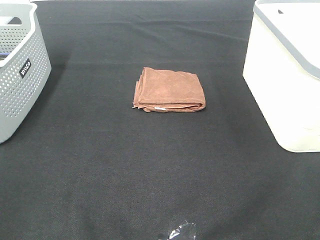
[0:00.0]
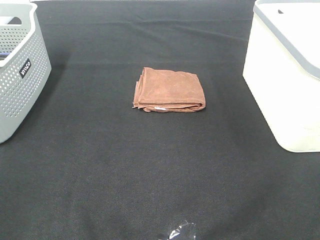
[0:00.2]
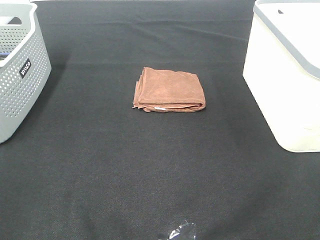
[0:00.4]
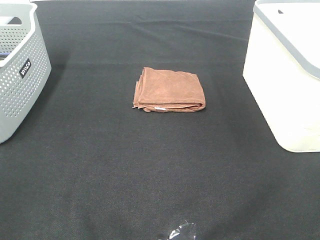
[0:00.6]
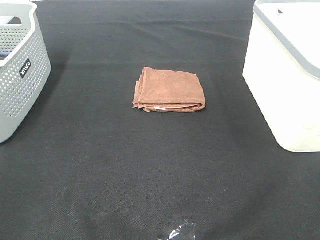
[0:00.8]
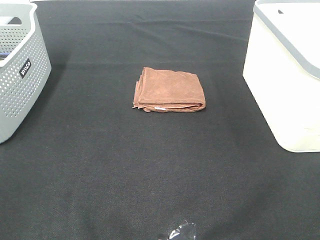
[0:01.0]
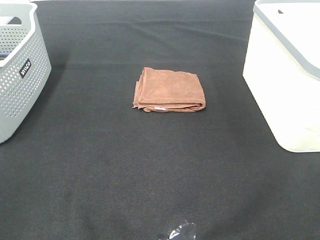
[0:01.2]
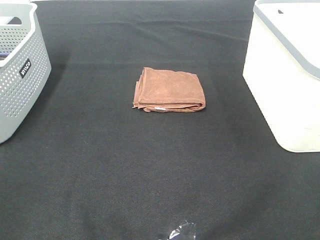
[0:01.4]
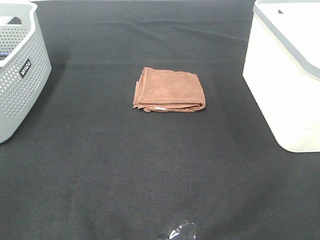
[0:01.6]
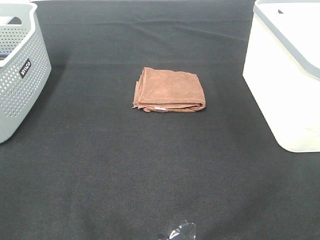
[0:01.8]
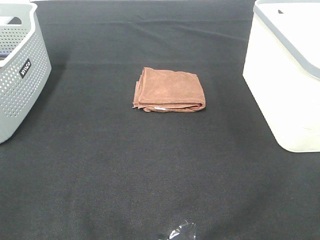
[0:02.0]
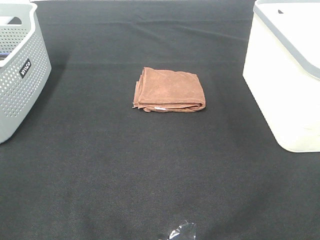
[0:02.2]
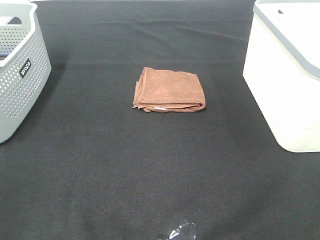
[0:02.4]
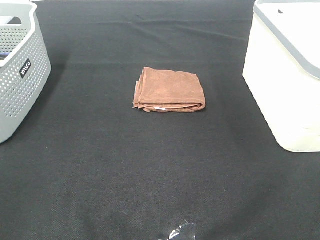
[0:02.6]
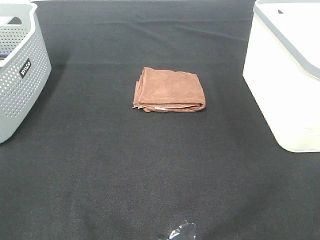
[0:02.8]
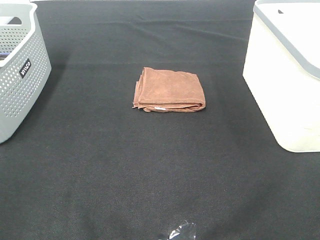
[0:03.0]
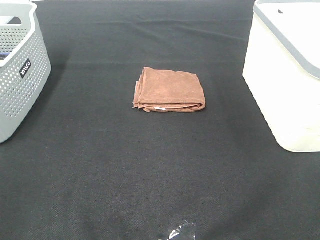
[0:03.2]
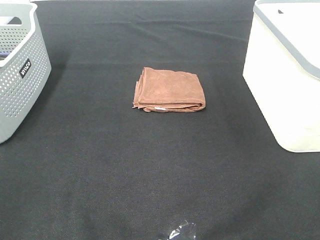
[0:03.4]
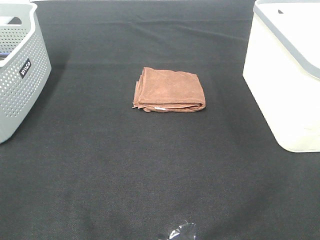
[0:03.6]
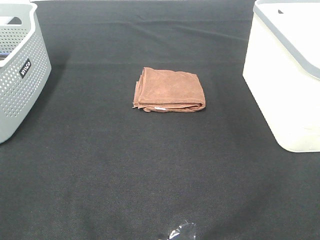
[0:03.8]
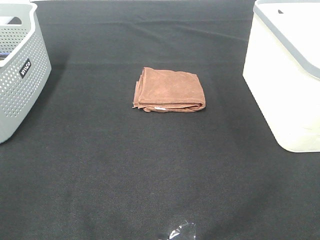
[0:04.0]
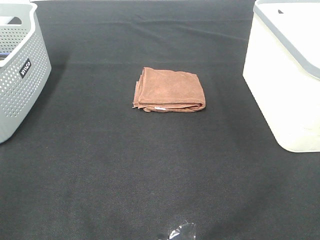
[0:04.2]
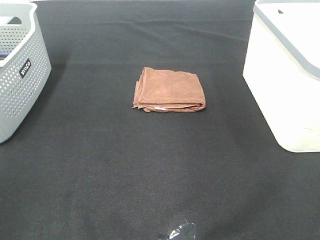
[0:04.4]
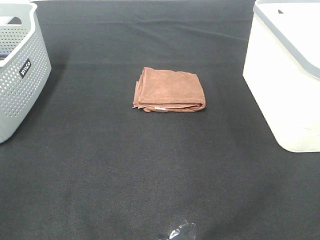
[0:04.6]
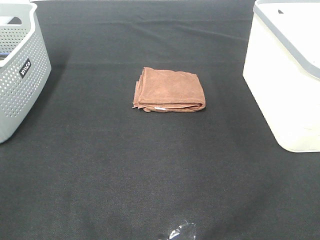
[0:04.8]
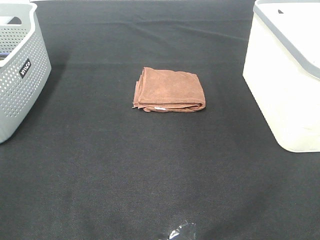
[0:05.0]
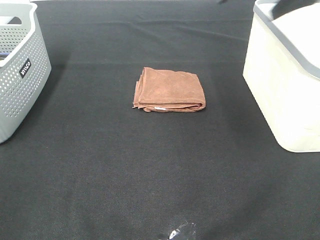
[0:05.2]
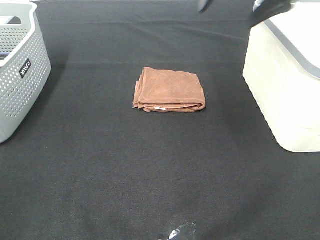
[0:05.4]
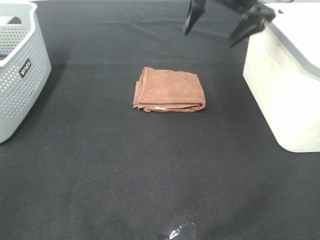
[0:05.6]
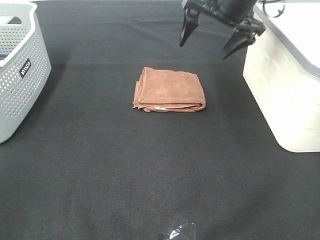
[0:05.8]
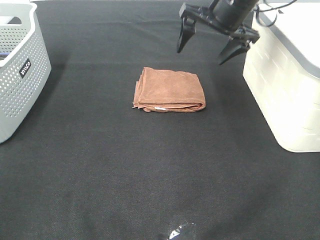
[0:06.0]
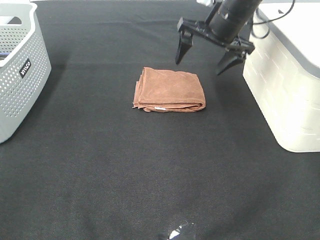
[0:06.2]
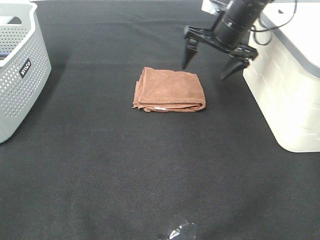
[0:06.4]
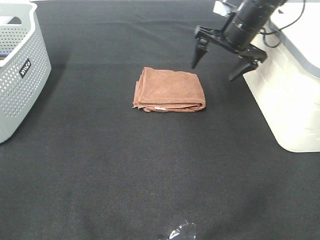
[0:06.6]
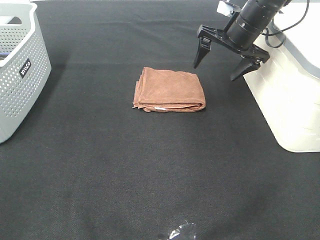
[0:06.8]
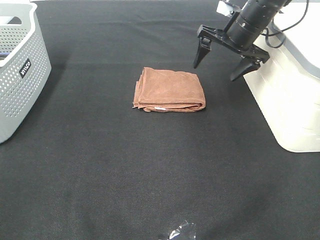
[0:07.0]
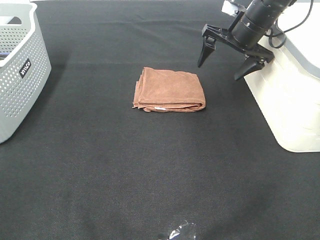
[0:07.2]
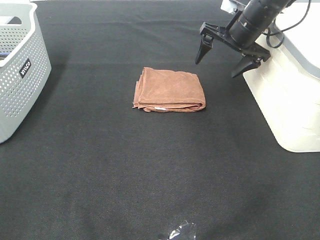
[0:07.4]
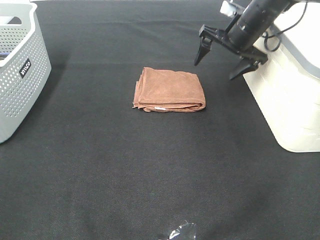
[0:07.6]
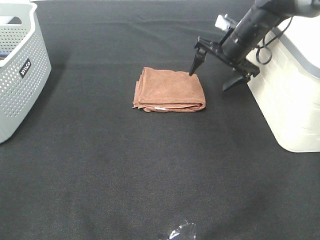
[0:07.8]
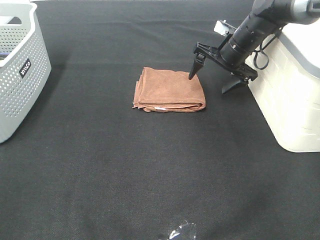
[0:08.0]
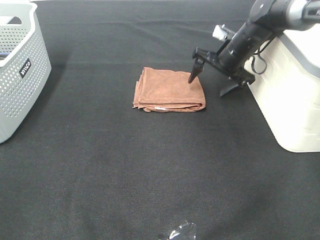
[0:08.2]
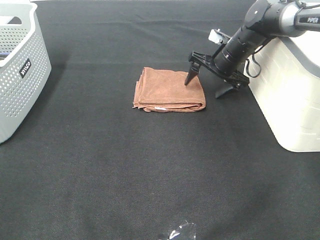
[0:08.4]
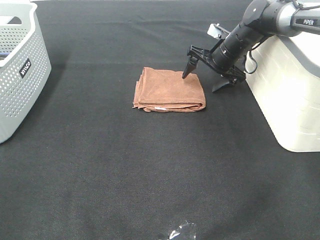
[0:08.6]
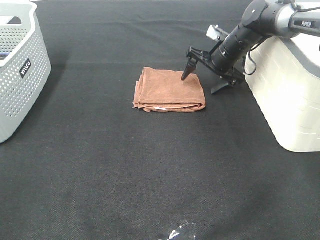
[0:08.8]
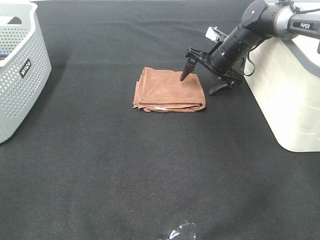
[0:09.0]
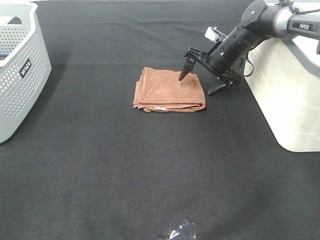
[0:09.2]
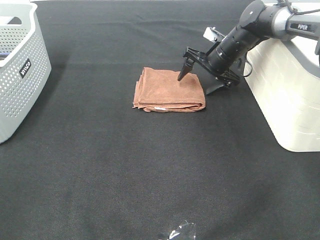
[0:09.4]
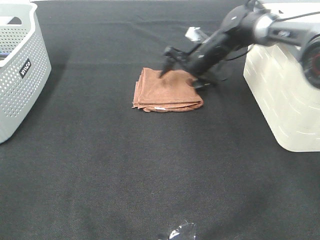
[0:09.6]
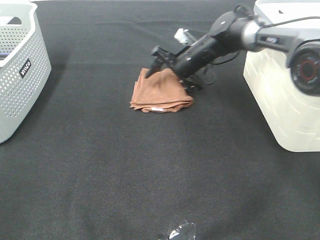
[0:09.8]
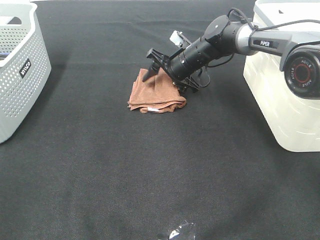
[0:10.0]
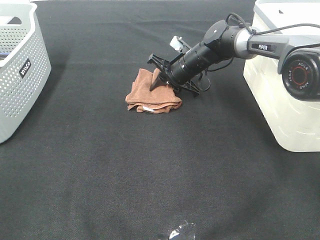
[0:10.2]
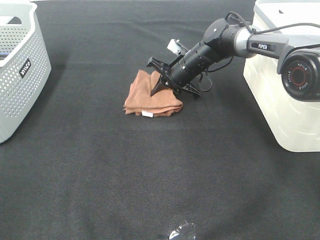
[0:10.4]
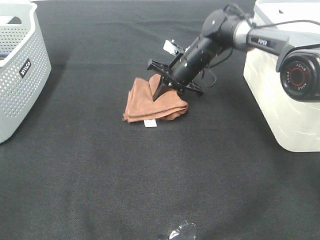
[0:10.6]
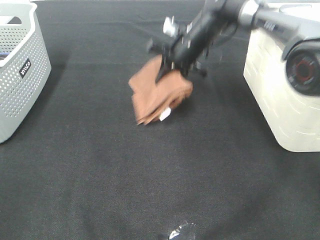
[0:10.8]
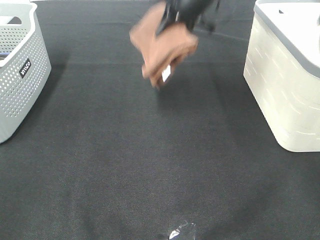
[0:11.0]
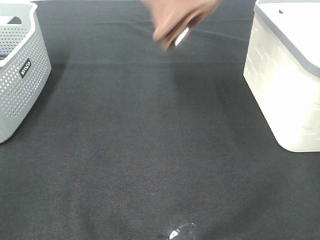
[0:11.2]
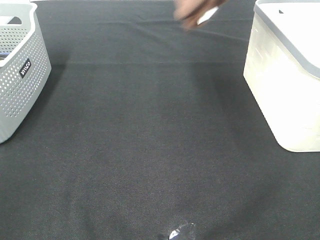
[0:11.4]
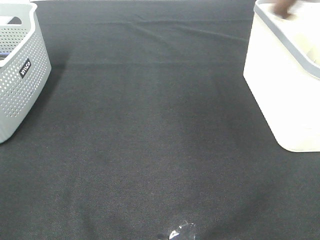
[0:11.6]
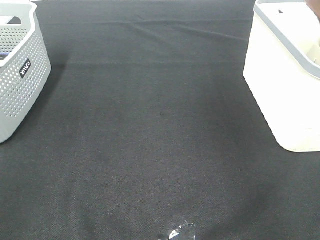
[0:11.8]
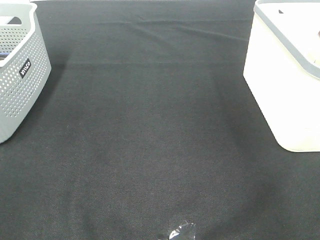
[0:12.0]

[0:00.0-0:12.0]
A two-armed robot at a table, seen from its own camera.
Step, 0:00.0 to 0:10.2: Right hand: grab the folded brown towel.
0:00.0 to 0:03.0: Both grippers stay put.
0:04.4 to 0:06.0: The right gripper travels forward, downward and to the left by some 35 cm.
0:06.0 to 0:07.6: The right gripper moves downward, approximately 5 cm.
0:07.6 to 0:09.0: The right gripper travels downward by some 10 cm.
0:09.0 to 0:10.4: The right gripper shifts some 10 cm to the left, and closes up.
0:10.4 to 0:12.0: The right gripper goes approximately 40 cm to the right and upward.

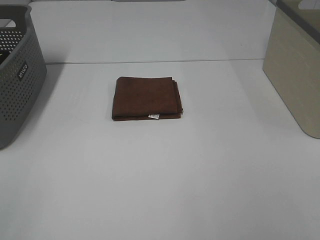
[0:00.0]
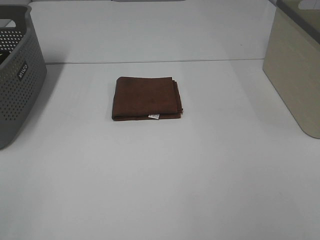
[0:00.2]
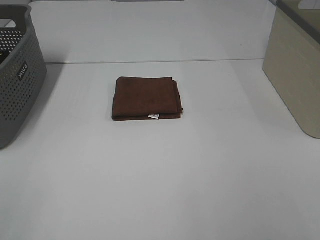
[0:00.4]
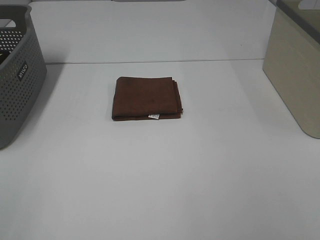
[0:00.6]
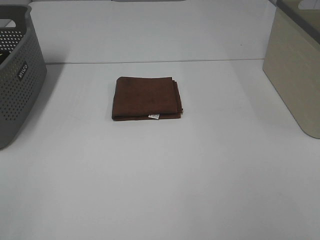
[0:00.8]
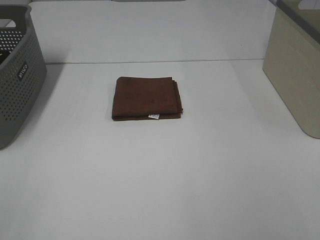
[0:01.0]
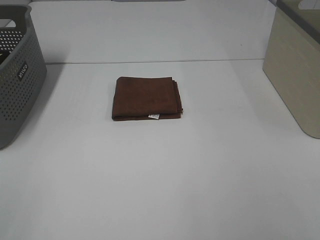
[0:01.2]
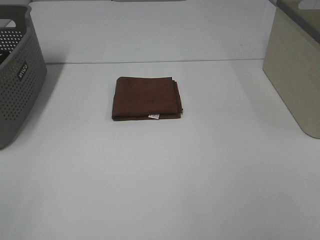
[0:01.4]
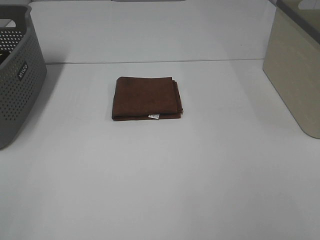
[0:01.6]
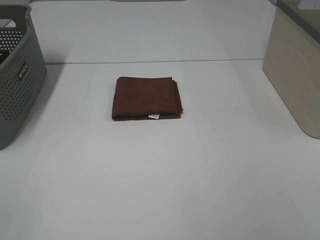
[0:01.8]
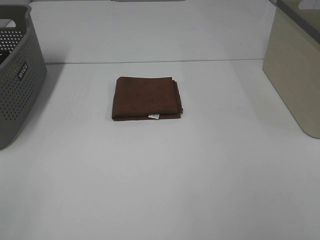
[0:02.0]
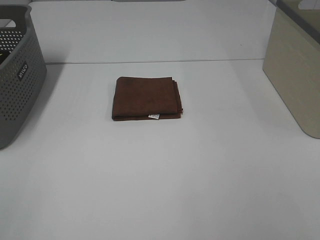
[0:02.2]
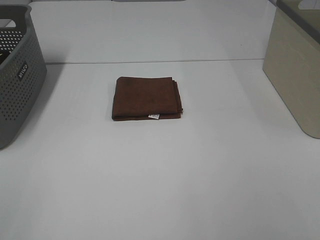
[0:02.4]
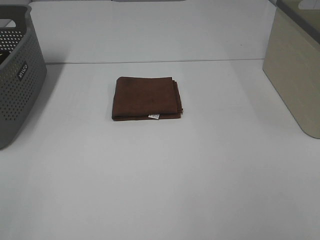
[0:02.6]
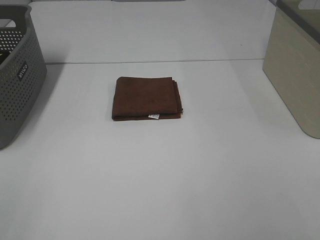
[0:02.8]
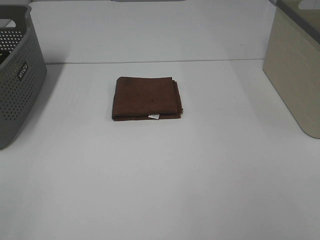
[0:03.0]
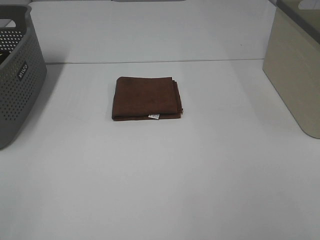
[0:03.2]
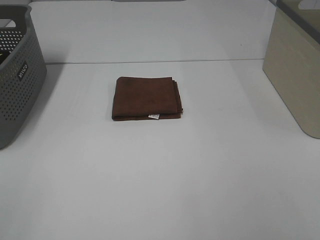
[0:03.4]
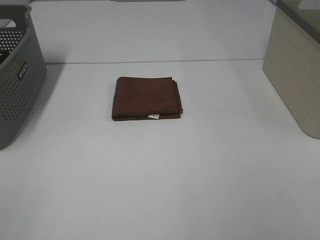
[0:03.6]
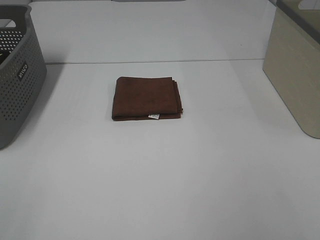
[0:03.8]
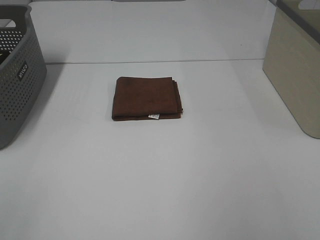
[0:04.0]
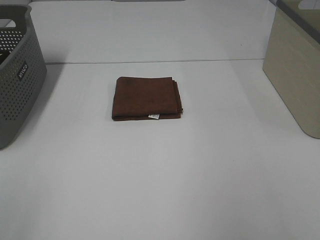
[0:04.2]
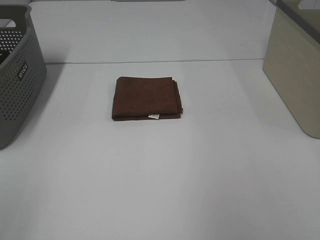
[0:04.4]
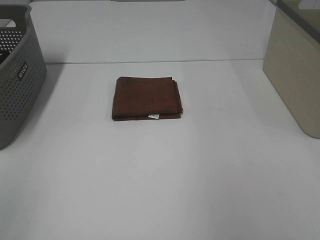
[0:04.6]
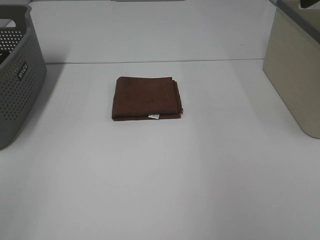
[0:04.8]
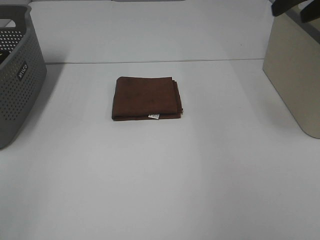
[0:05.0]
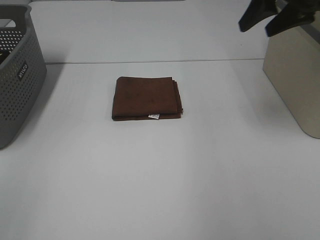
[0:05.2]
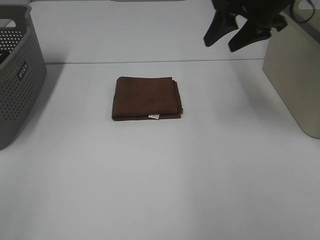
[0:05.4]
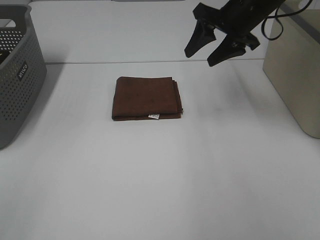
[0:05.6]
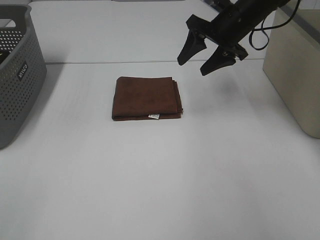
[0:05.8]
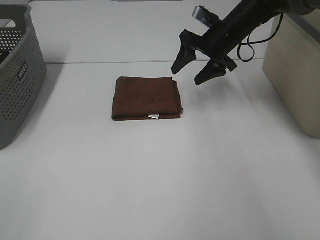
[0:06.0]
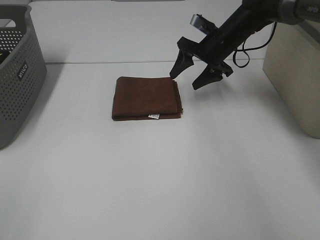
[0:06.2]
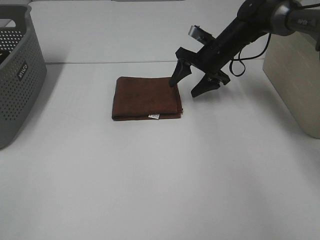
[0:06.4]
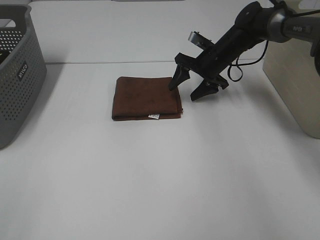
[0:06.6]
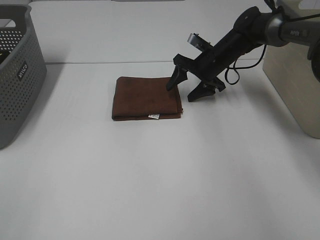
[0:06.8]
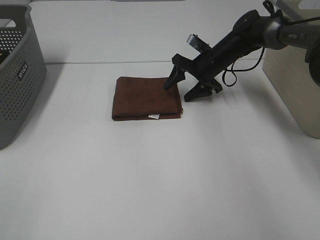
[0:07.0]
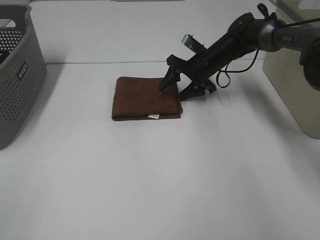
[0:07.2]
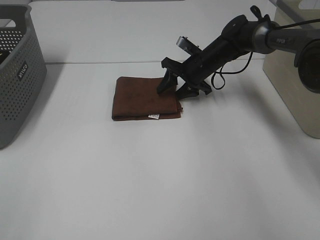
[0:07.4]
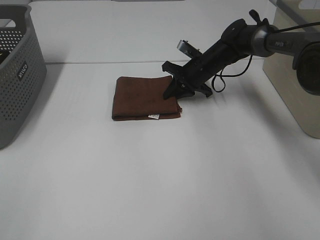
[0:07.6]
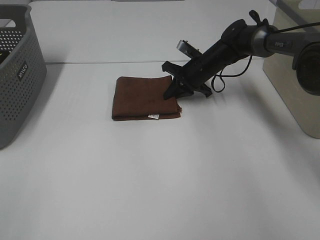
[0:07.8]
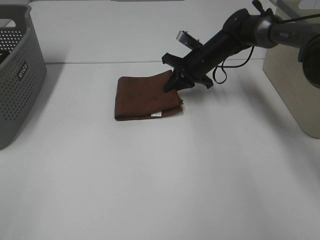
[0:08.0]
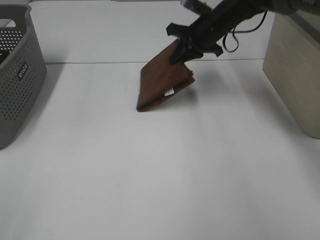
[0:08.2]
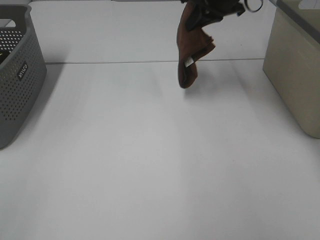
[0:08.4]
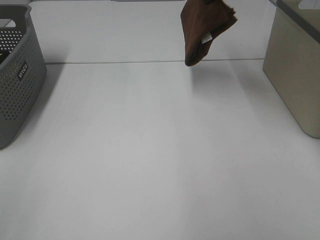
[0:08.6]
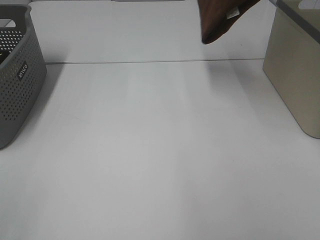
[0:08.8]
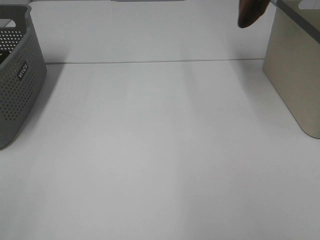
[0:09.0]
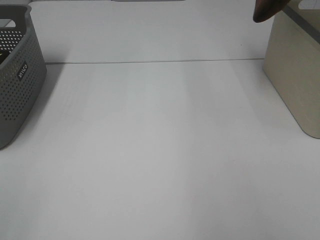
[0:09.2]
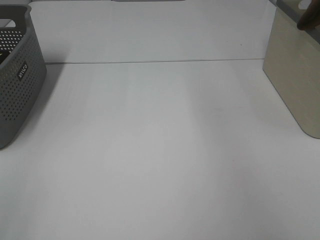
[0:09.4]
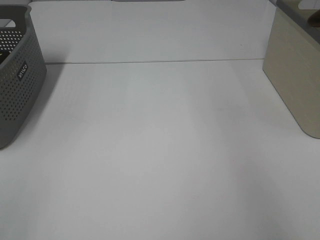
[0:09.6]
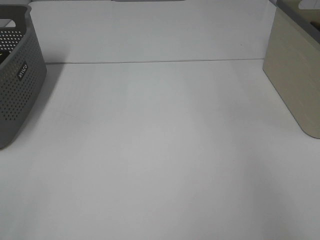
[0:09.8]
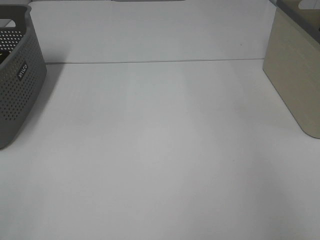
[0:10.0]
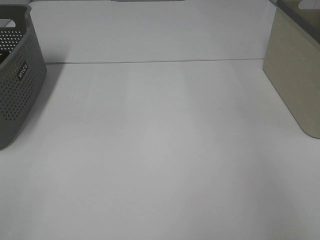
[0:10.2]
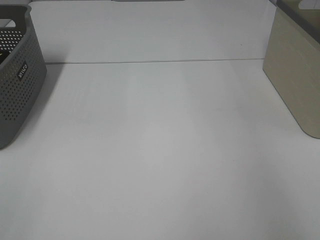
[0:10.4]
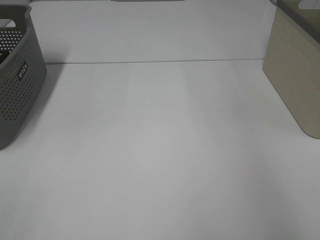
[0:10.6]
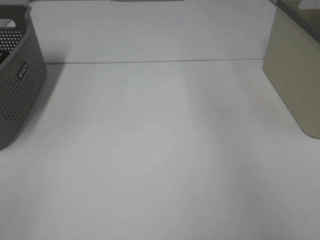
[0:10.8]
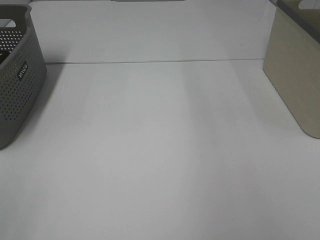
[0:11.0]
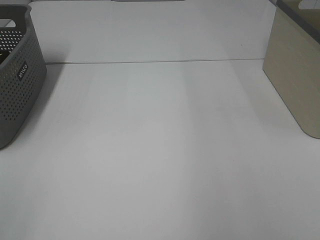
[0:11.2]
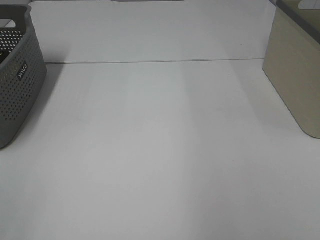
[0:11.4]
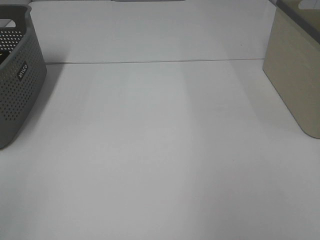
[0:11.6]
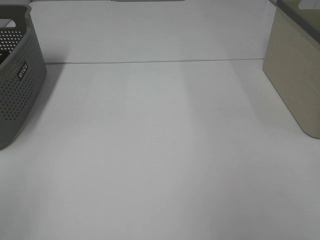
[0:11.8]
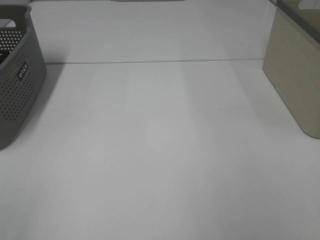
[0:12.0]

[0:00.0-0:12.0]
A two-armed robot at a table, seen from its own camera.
Step, 0:00.0 to 0:07.6: Right hand: grab the folded brown towel.
Step, 0:07.8 to 0:10.4: Right hand: place the brown towel in right basket.
0:00.0 to 0:03.0: The two grippers keep their place.
0:04.4 to 0:06.0: The right gripper shifts approximately 40 cm forward, downward and to the left.
0:06.0 to 0:07.6: The right gripper is displaced downward by about 10 cm, and closes its fingers.
0:07.6 to 0:09.0: The right gripper heads upward, covering roughly 35 cm.
0:09.0 to 0:10.4: The right gripper shifts some 20 cm to the right and downward, and opens.
